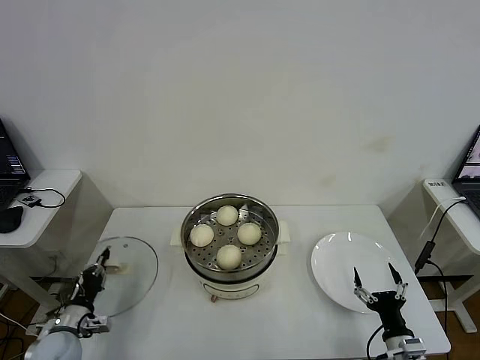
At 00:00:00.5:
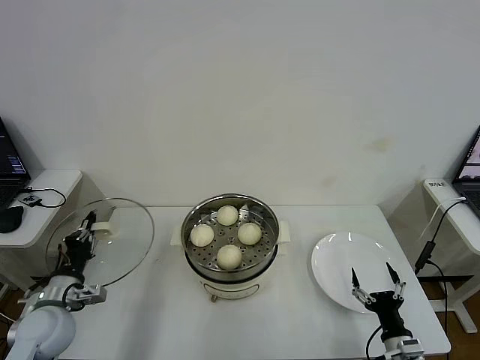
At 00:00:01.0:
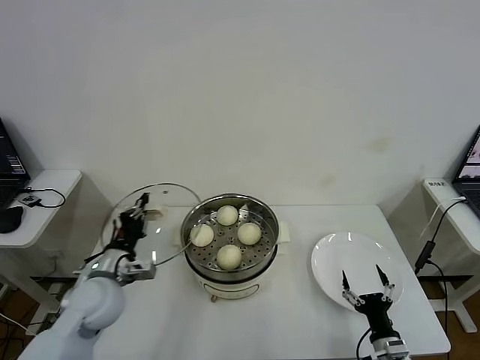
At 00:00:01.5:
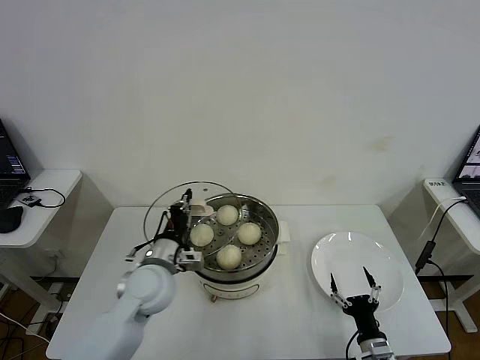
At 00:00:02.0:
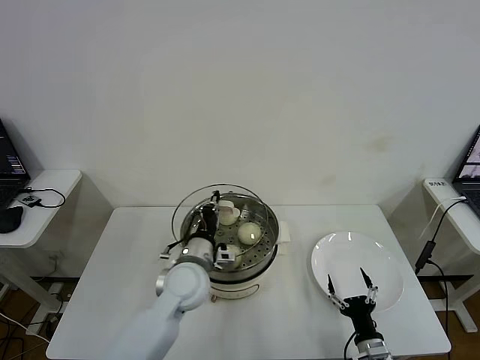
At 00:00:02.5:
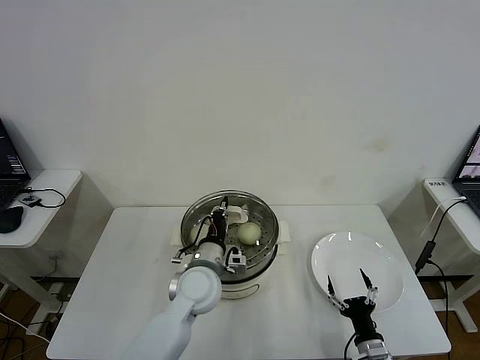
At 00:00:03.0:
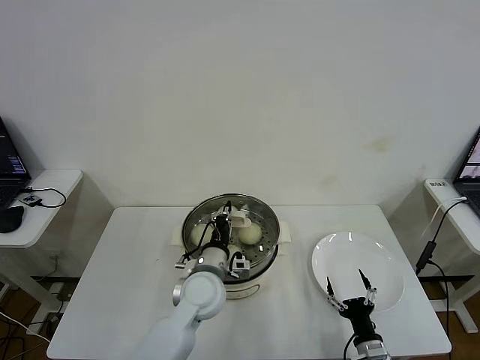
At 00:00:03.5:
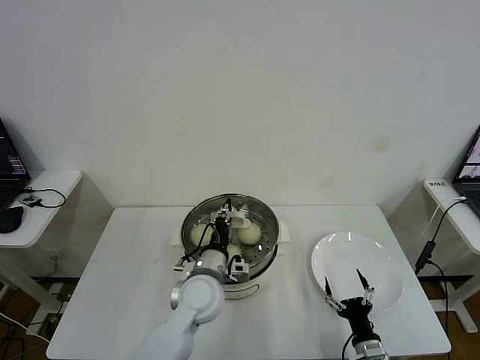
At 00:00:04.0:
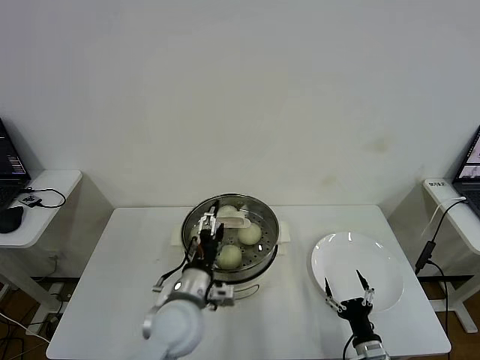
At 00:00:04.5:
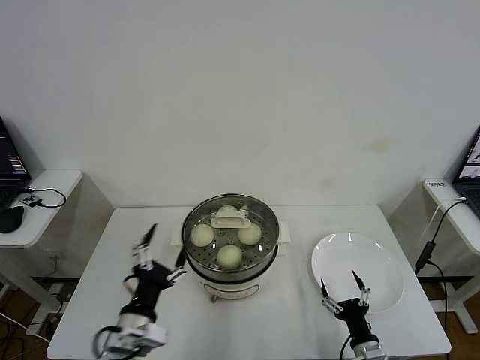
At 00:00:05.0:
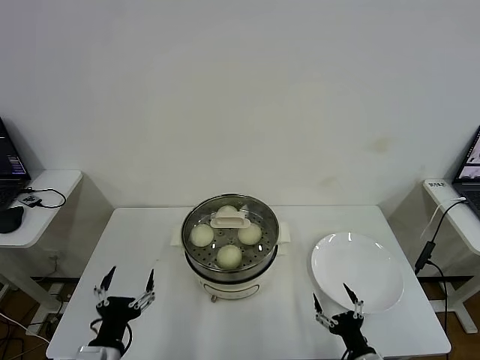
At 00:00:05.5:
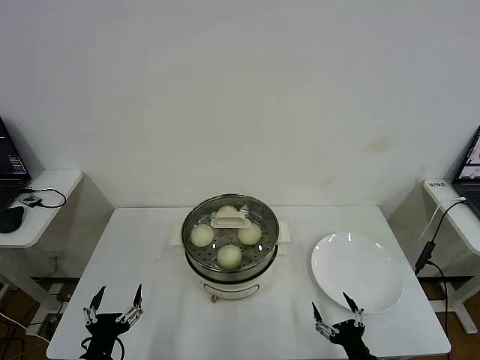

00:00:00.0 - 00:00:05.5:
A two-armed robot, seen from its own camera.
Step, 00:00:00.0 - 00:00:03.5: Place the pot lid on the steamer with left gripper.
00:00:00.0 - 00:00:02.0: The right gripper shifts by approximately 5 cm. Meanwhile the left gripper moves to the right and upward, approximately 35 cm.
00:00:02.0 - 00:00:03.5: The grippers make only small movements.
00:00:03.5 - 00:00:05.5: The right gripper shifts roughly 5 cm backward, while the left gripper moves backward and to the left, roughly 30 cm, and opens.
